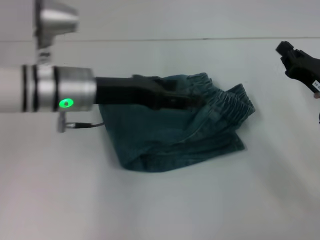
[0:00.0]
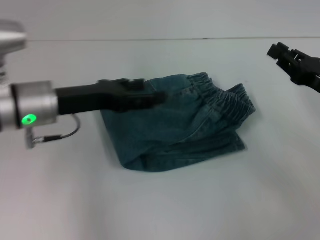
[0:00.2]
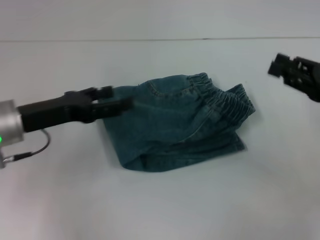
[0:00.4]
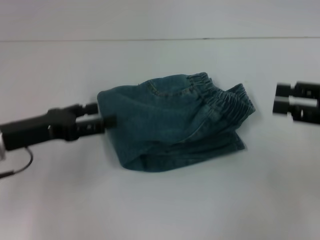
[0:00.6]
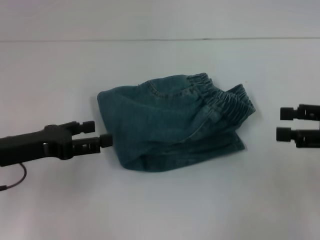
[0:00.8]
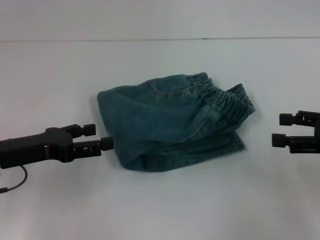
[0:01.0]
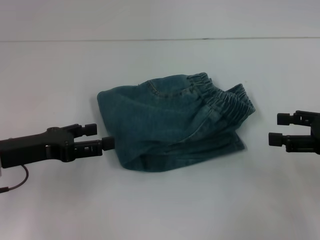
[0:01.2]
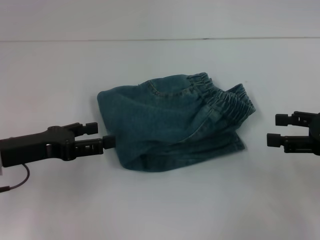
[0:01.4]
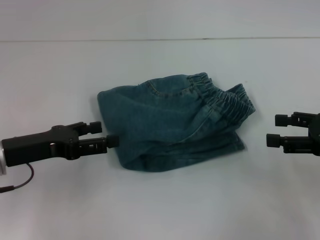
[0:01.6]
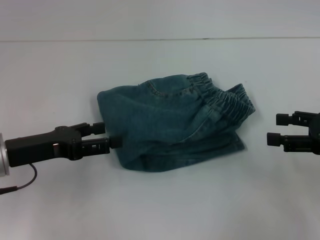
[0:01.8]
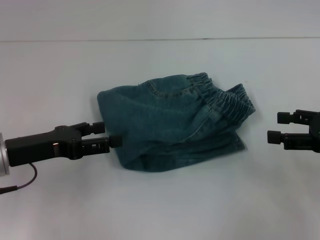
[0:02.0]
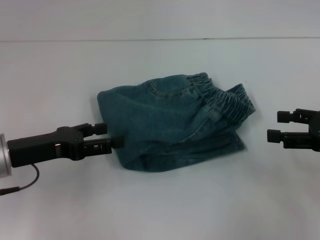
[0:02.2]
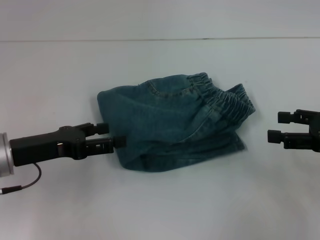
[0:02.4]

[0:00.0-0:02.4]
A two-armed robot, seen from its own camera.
0:00.0 to 0:01.2: The right gripper heads upward, covering approximately 5 cm, and opens; the left gripper goes some 15 cm to the left and backward.
0:01.2 to 0:02.4: The grippers move only a little.
